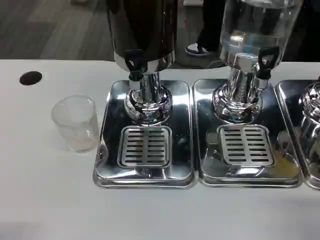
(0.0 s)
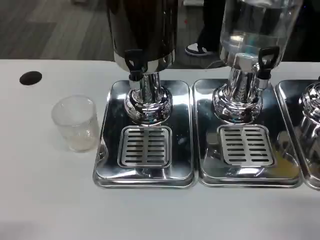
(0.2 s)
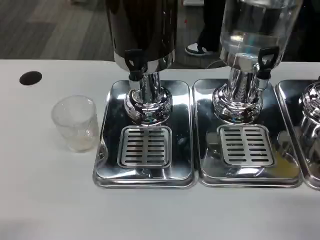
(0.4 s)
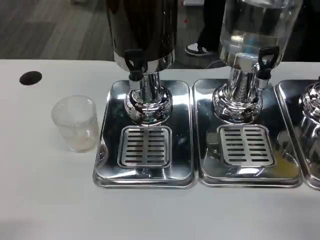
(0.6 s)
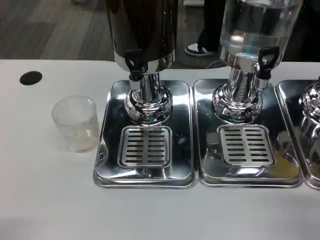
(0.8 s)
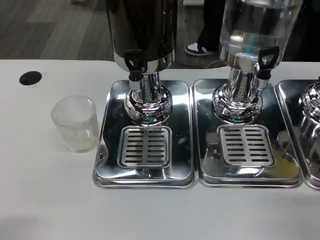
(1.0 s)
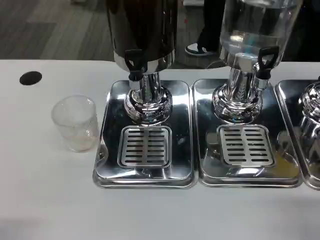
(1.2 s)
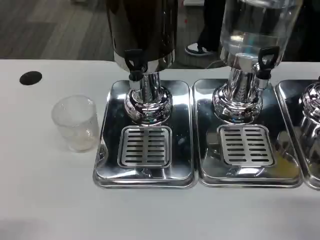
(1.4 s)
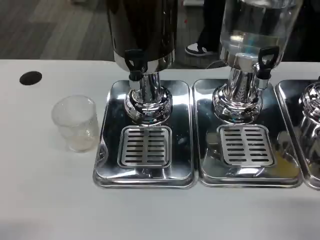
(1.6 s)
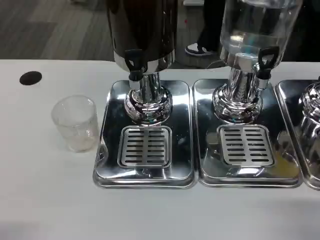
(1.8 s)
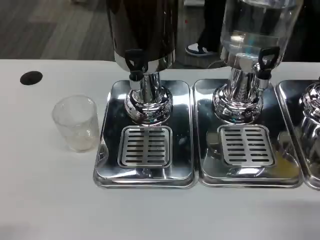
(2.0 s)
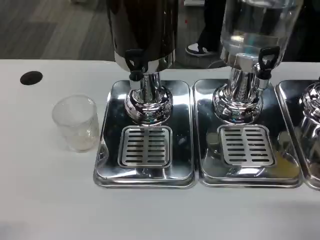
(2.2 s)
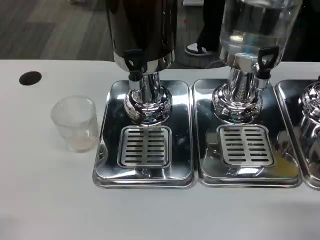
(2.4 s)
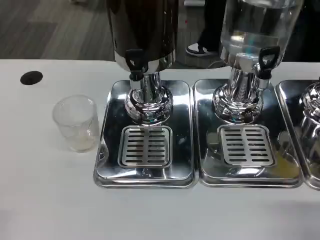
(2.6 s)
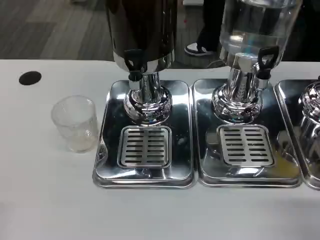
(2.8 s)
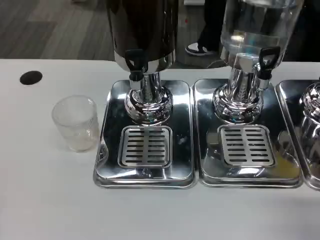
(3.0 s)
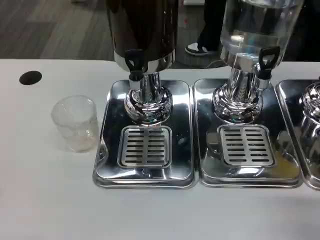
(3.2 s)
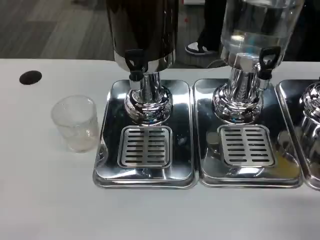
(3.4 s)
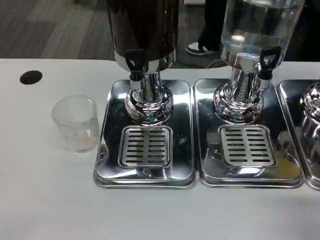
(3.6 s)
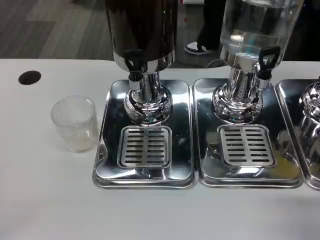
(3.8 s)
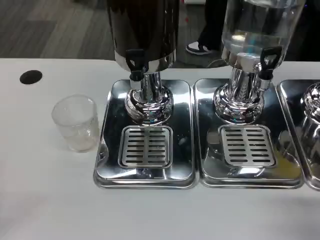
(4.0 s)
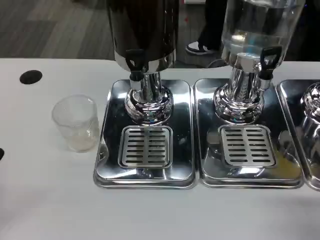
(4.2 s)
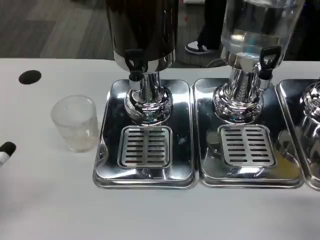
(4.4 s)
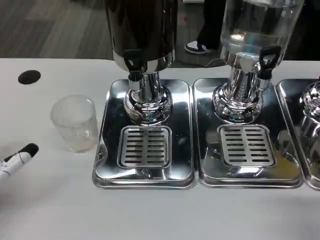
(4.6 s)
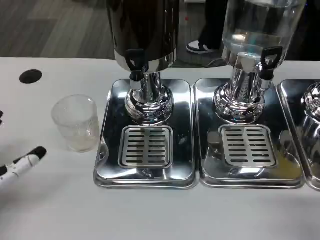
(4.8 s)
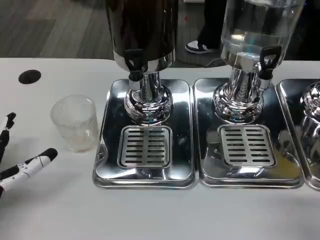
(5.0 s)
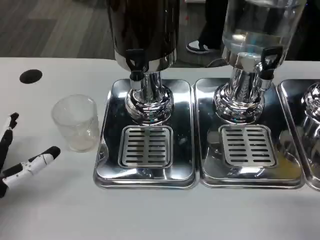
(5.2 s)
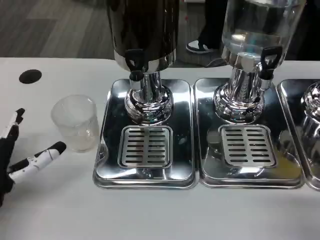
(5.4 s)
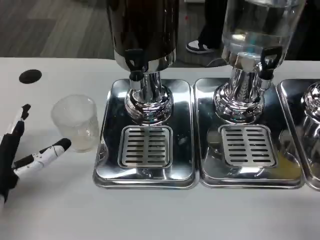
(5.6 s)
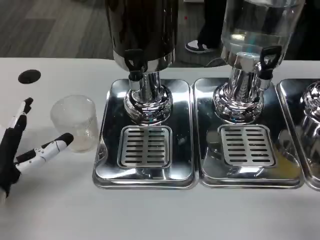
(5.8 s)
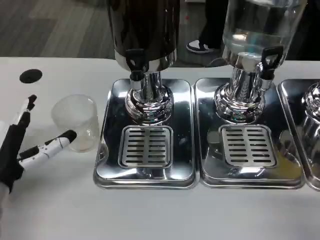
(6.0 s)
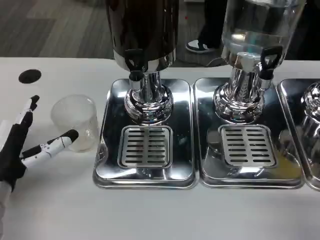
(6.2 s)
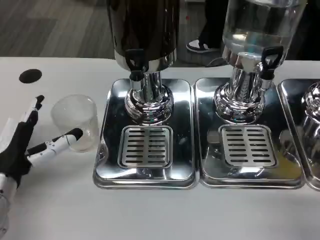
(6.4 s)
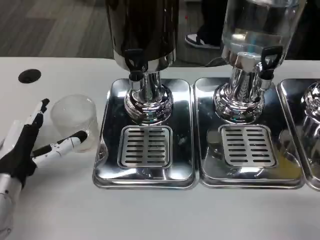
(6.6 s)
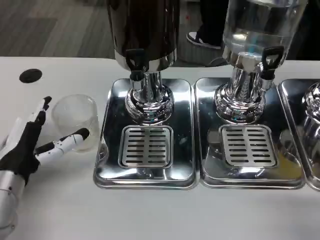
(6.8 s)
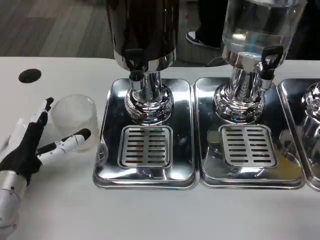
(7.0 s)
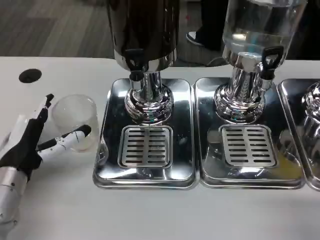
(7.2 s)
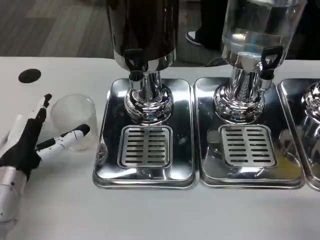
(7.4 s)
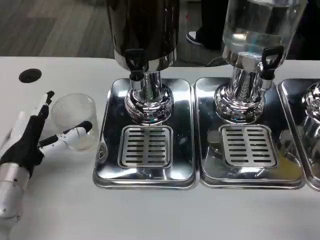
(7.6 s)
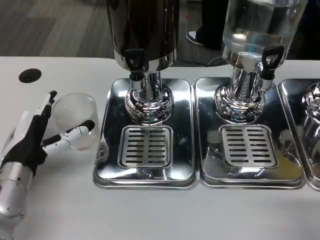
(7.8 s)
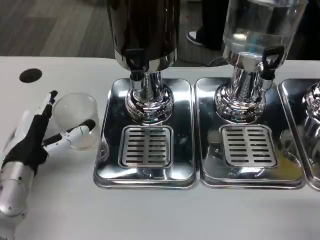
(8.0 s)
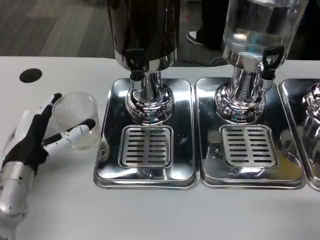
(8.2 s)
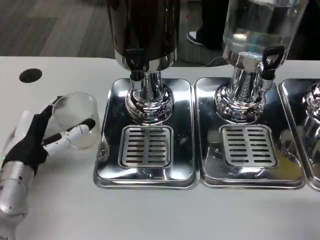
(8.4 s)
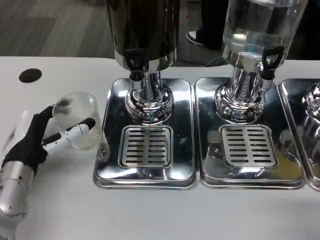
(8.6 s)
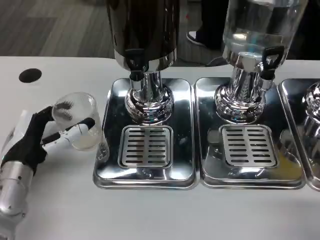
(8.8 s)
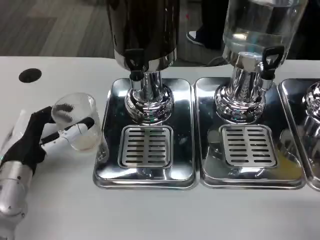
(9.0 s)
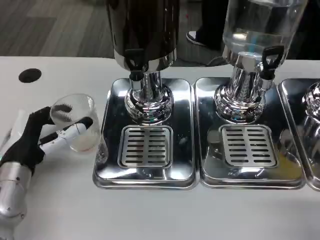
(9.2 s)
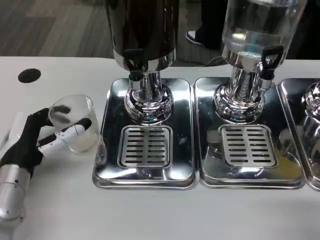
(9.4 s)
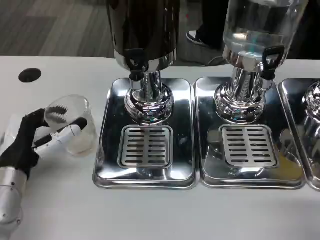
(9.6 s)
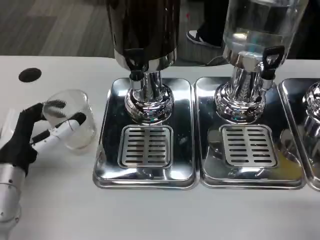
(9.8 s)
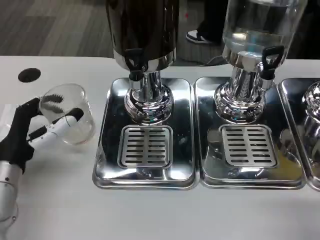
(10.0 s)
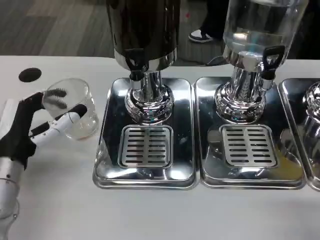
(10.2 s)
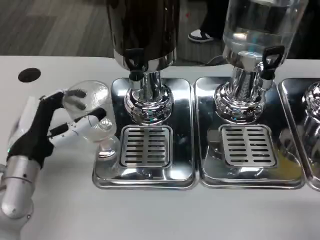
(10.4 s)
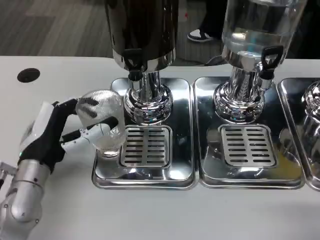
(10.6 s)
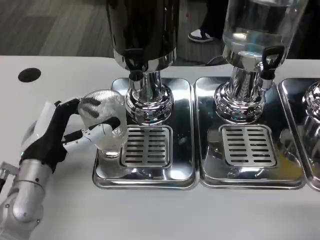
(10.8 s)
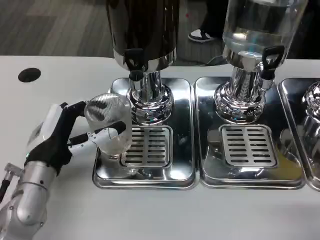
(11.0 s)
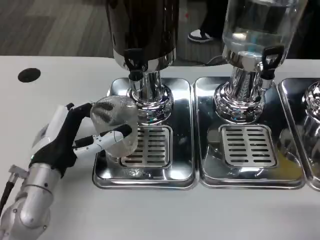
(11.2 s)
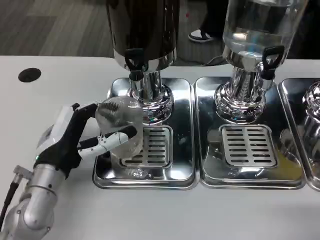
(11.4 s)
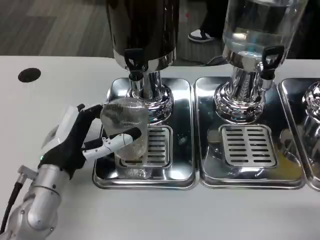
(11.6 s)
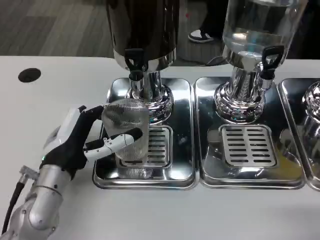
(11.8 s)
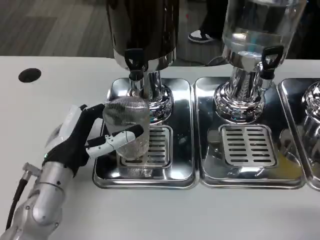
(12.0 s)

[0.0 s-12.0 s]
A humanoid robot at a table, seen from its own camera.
Task of the whole recording: Grasp the cup under the faucet to collect the drink, then remove the cup.
1.6 to 3.0 s: The left hand shifts about 5 cm forward.
3.0 to 4.4 s: The left hand goes some 10 cm forward.
4.4 to 6.0 s: The left hand is displaced forward and to the right by roughly 10 cm.
6.0 to 7.6 s: The hands move only a little.
7.6 to 9.0 s: Neither hand changes place.
9.0 to 12.0 s: There are only small adjustments of the hands.

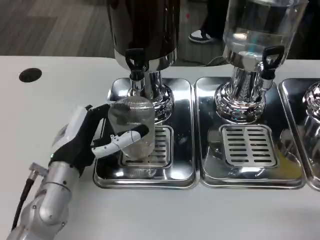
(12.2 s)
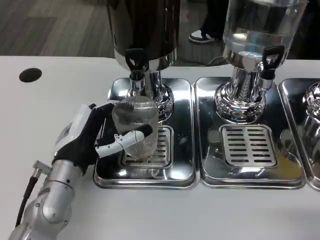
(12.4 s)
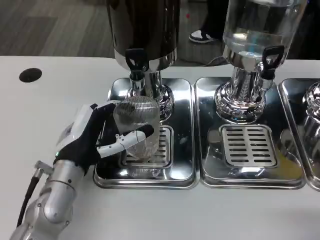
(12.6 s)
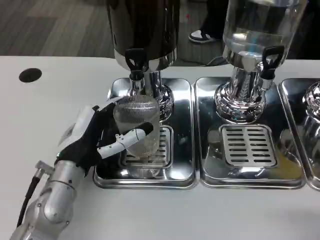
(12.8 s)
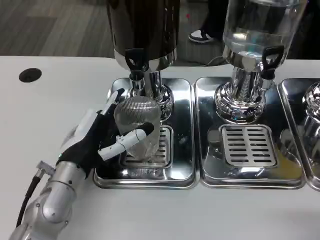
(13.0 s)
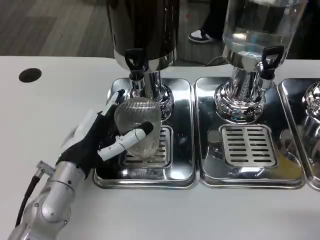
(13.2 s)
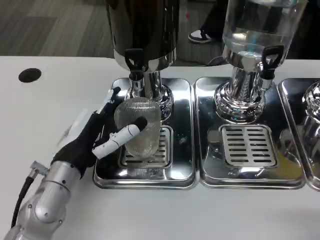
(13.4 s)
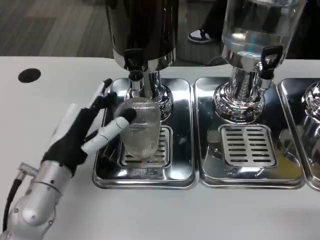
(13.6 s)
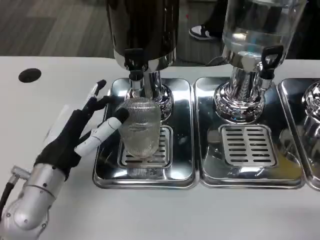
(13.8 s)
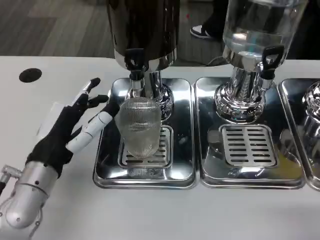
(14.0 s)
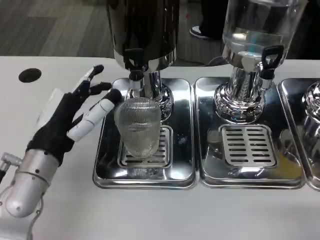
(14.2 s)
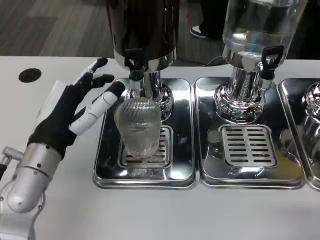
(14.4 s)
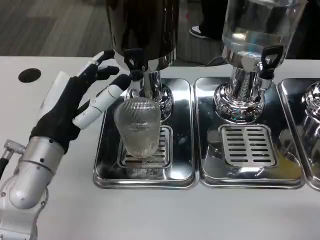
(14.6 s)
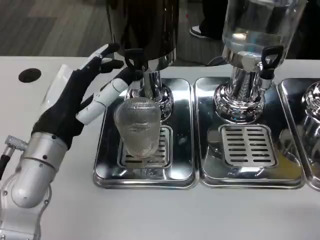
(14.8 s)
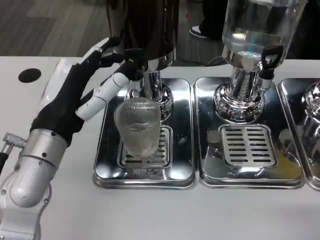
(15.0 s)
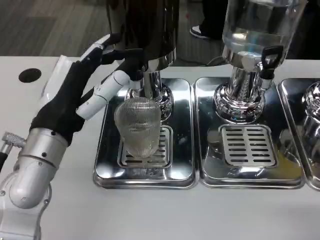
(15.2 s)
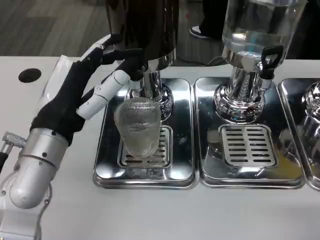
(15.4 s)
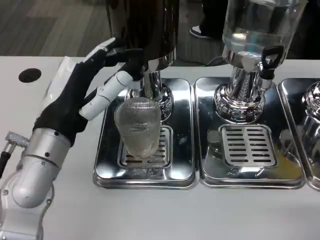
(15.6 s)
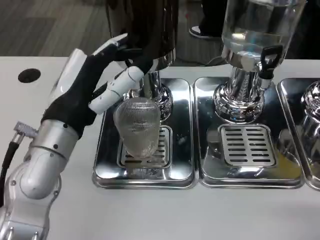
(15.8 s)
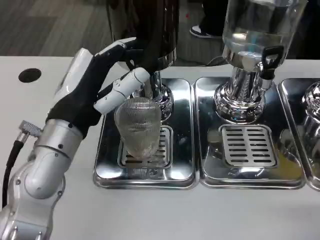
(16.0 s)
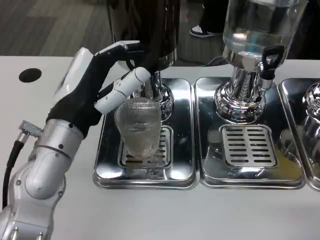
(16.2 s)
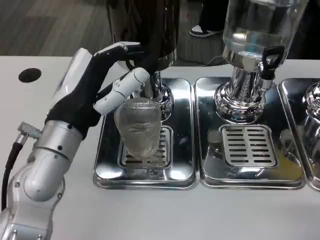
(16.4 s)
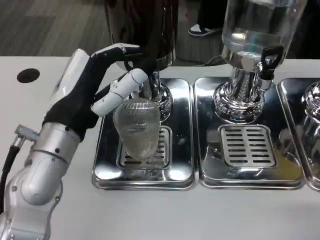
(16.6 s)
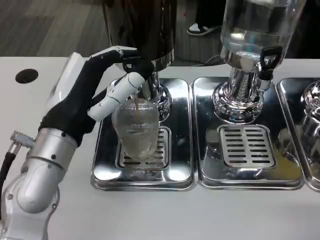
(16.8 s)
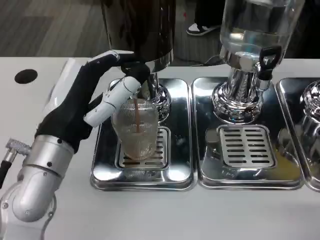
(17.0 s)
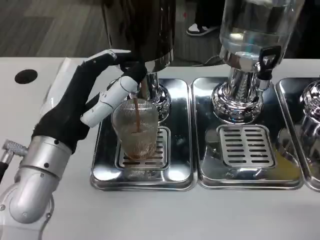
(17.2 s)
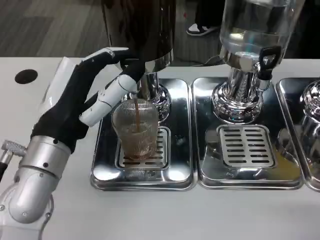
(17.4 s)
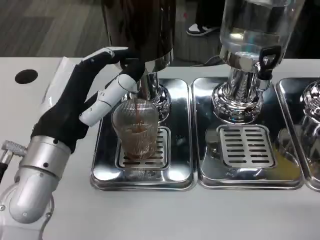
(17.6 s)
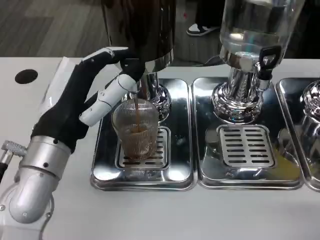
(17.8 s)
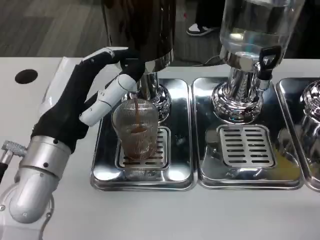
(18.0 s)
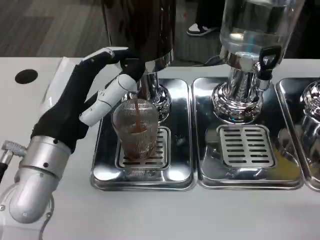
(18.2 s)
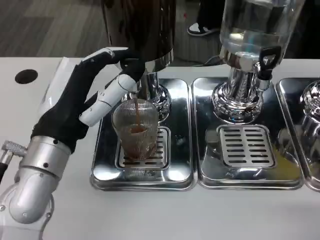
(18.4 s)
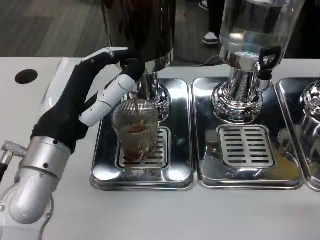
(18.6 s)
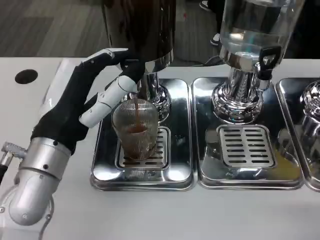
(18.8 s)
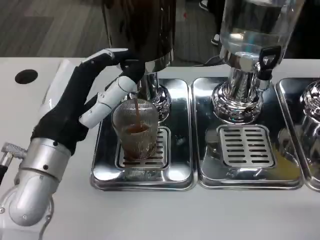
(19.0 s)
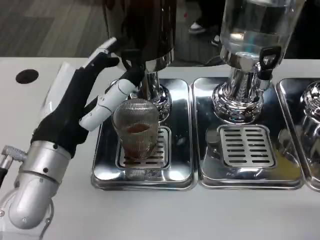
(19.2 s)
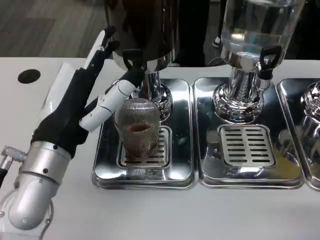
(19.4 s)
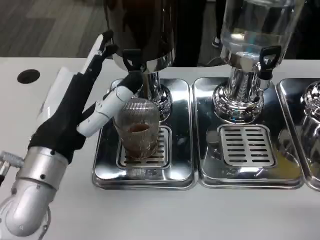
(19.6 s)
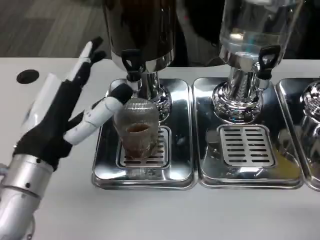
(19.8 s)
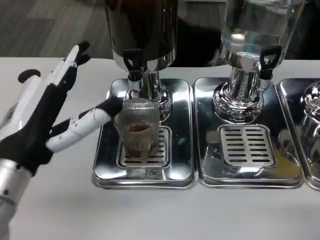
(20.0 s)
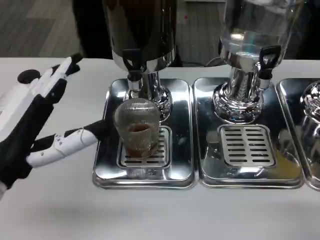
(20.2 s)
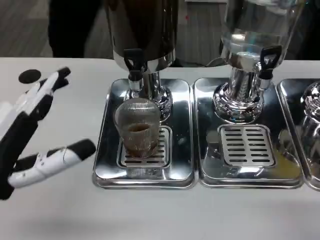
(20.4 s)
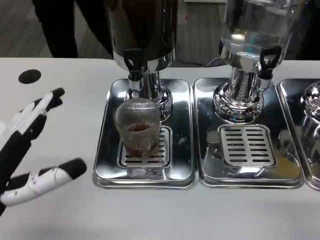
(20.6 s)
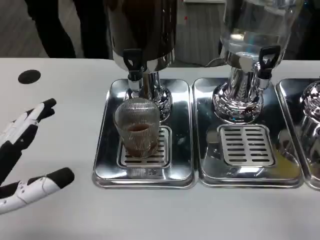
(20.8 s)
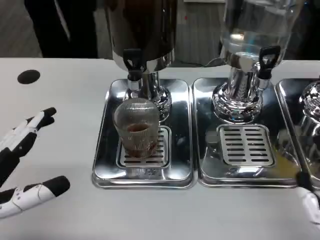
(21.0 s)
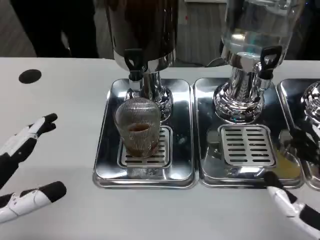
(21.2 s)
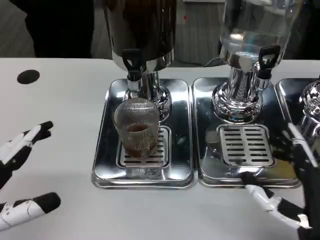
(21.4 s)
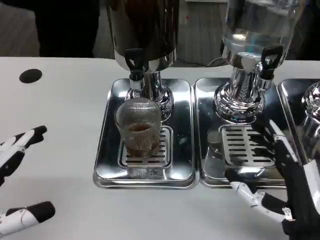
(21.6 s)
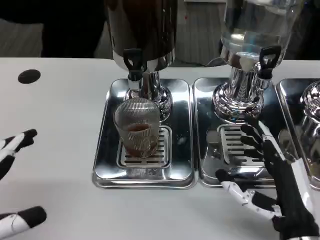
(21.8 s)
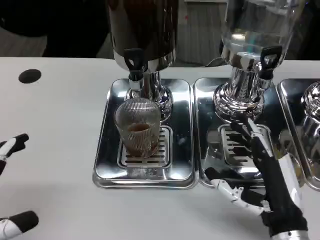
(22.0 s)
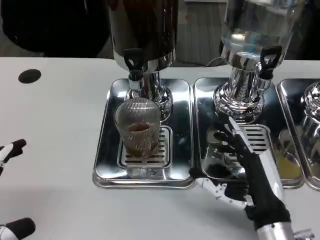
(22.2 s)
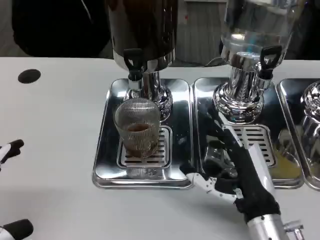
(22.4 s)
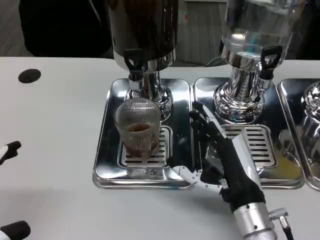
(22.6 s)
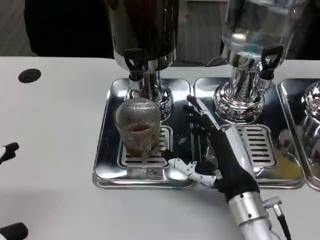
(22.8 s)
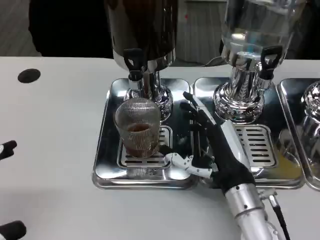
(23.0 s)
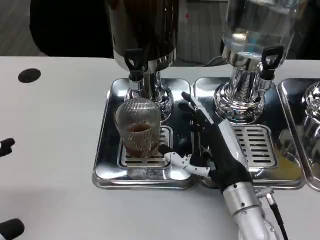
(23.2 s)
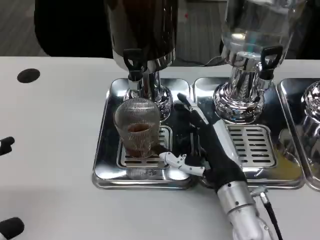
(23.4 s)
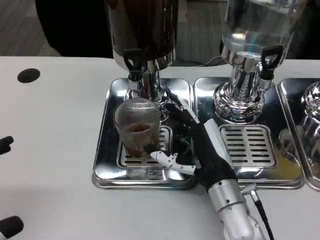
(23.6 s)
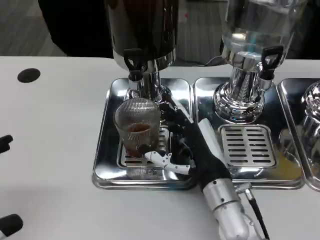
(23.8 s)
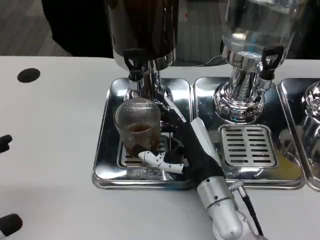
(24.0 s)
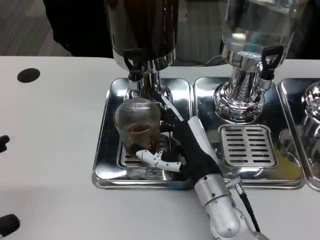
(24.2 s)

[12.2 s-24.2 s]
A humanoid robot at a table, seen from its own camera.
Task of the whole recording: Grasp the cup under the faucet to collect the drink, then remove the cup.
12.2 to 13.8 s: The hands move only a little.
13.8 to 15.2 s: The left hand travels upward by roughly 10 cm.
15.2 to 16.6 s: The hands move only a little.
18.2 to 19.8 s: There are only small adjustments of the hands.
19.8 to 21.2 s: The right hand travels forward by about 5 cm; the left hand goes some 15 cm to the left and backward.
21.2 to 22.6 s: The right hand travels forward and to the left by some 10 cm; the left hand ends up about 5 cm from where it was.
22.6 to 24.2 s: The right hand goes some 5 cm to the left.
